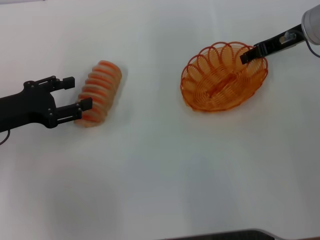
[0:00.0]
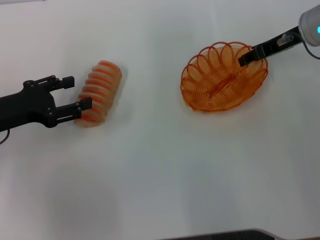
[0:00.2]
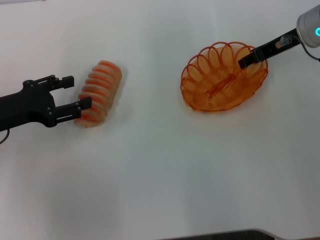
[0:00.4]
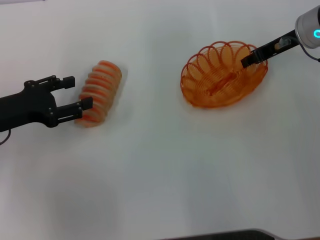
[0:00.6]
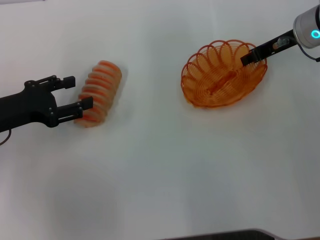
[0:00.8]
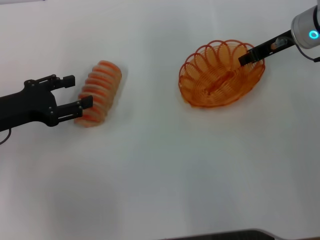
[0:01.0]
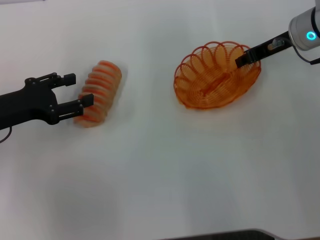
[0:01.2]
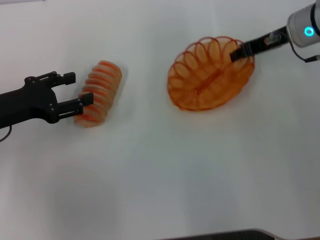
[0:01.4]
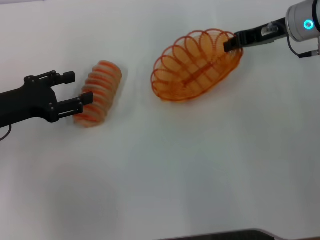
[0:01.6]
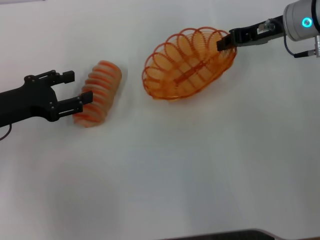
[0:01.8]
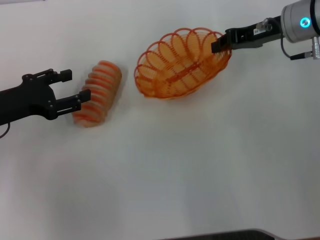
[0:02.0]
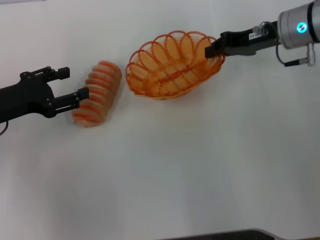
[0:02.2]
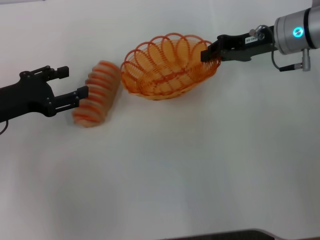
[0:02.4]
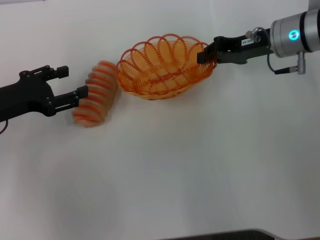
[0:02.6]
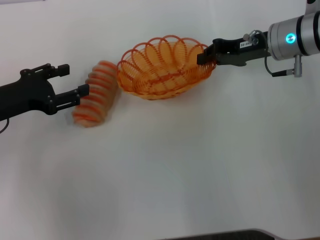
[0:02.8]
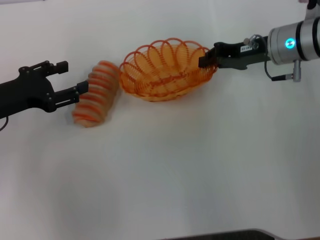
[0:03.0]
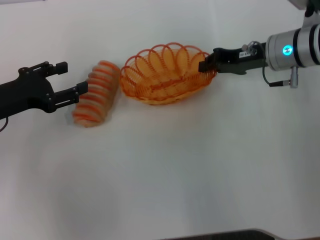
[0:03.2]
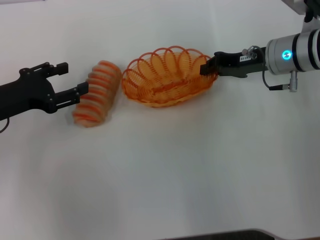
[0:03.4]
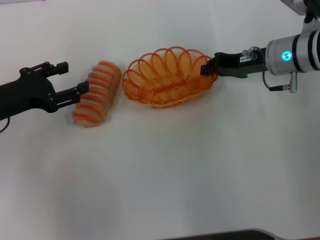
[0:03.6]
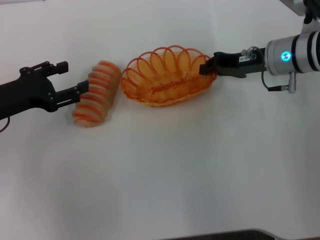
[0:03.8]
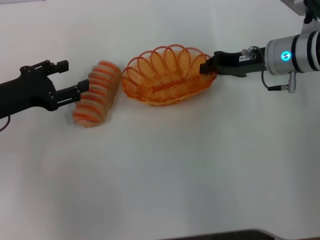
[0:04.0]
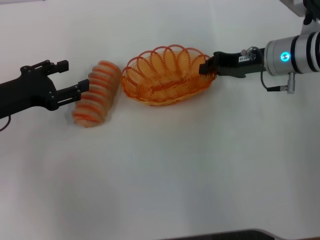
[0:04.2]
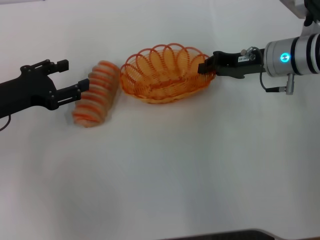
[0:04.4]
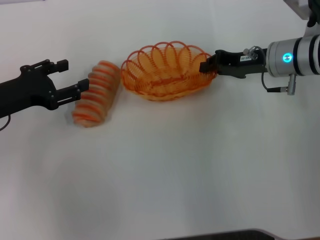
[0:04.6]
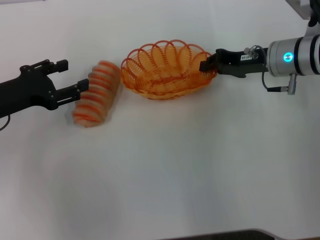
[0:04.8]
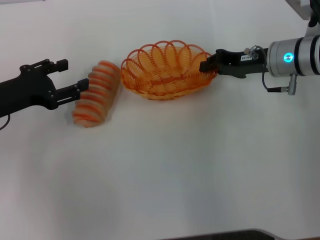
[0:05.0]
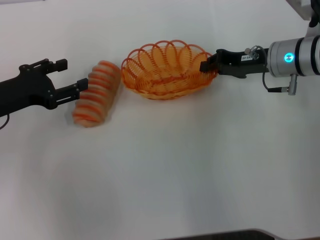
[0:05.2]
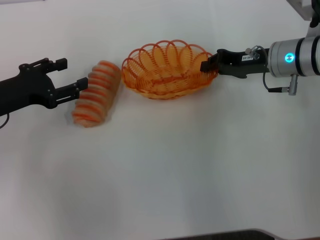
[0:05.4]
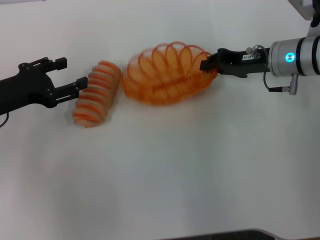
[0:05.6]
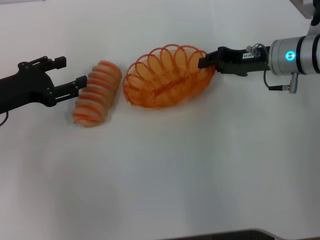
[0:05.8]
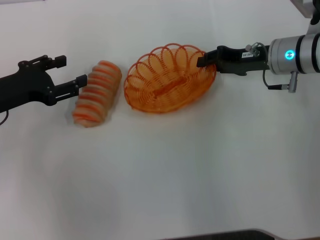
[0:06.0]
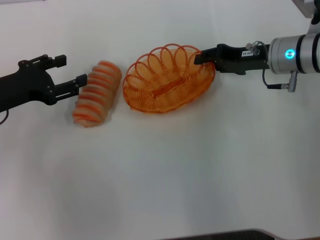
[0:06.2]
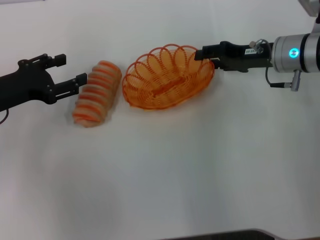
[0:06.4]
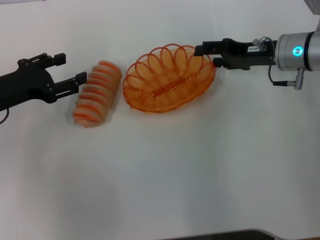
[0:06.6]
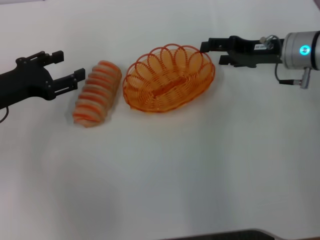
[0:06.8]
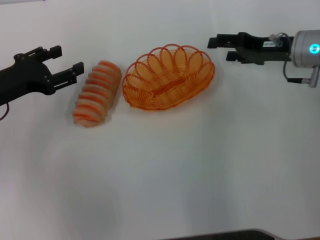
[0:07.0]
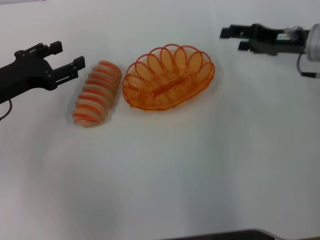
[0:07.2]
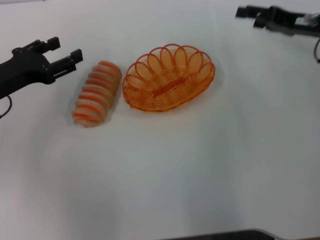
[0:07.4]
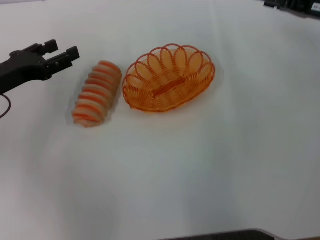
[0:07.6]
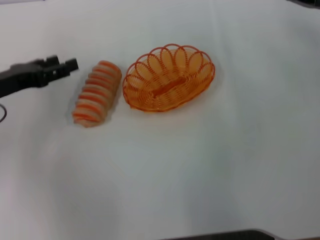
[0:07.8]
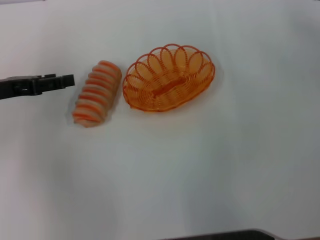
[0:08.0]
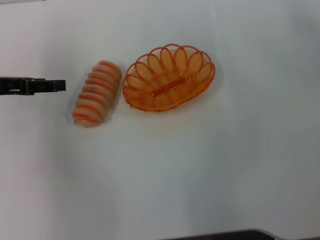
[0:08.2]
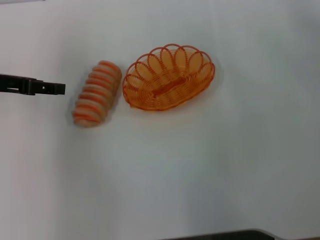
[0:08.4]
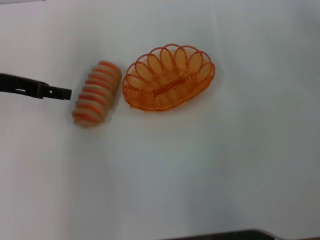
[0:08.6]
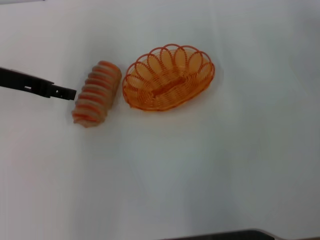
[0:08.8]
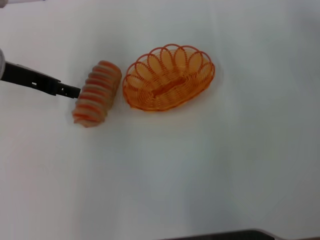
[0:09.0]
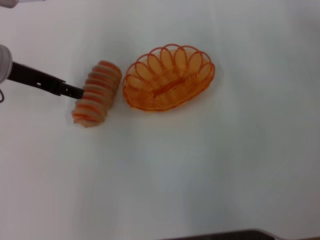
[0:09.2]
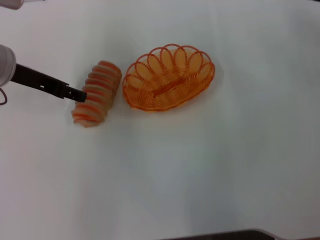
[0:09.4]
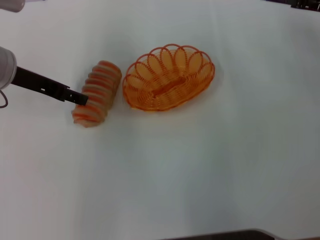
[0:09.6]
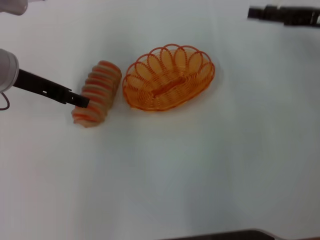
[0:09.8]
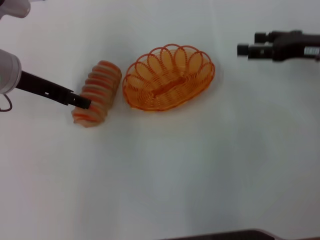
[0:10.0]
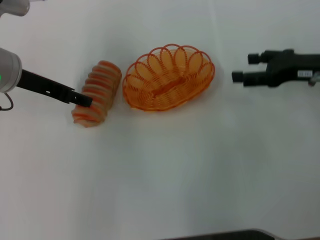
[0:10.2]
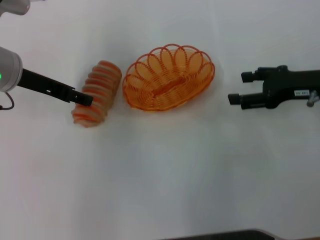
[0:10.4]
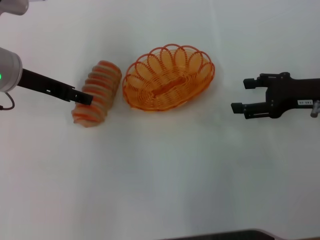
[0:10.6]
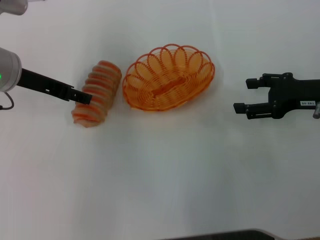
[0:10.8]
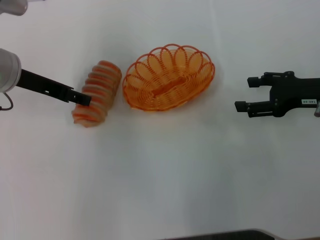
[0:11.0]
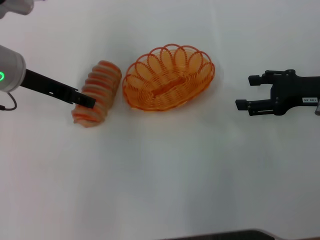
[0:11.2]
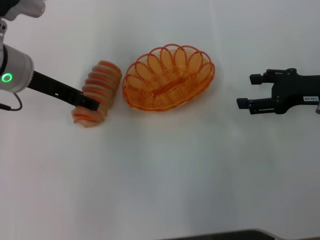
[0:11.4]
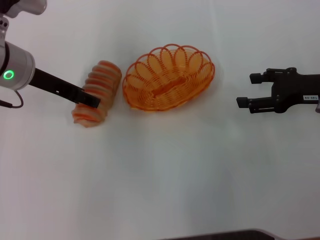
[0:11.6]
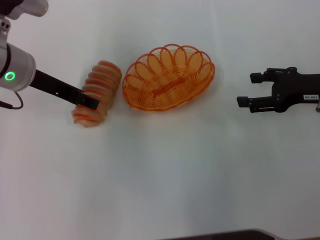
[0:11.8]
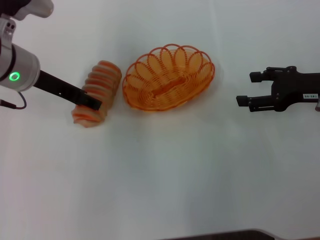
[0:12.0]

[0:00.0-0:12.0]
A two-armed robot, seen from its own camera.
Step, 0:01.8 to 0:06.6: Place the basket in the center of view with the right gripper.
0:00.0 to 0:01.6: The grippers make only small movements.
0:03.0 to 0:04.4: There are only small adjustments of the grippers.
0:04.4 to 0:06.0: The two grippers keep their place.
0:06.0 to 0:07.6: The right gripper goes approximately 10 cm to the right and upward, and opens.
0:07.6 to 0:09.0: The left gripper travels upward by roughly 5 cm.
0:09.0 to 0:10.4: The right gripper travels downward and backward by roughly 10 cm.
0:10.4 to 0:12.0: The grippers move only a little.

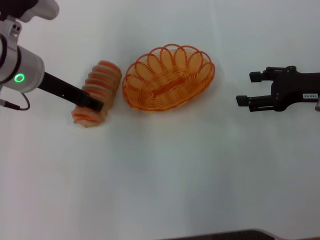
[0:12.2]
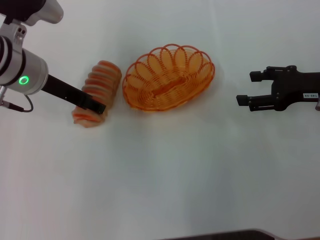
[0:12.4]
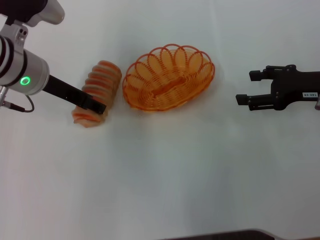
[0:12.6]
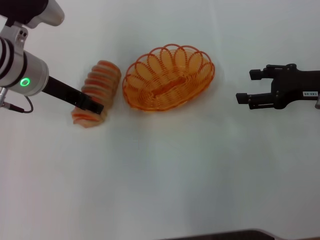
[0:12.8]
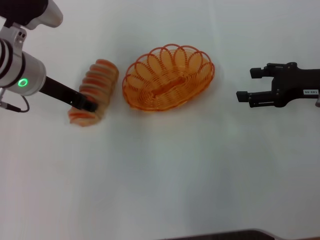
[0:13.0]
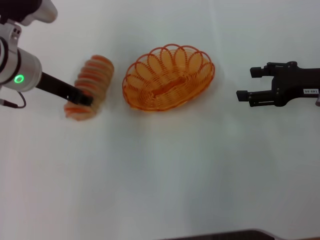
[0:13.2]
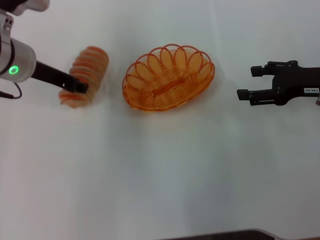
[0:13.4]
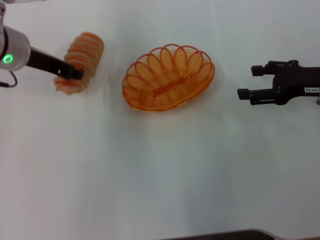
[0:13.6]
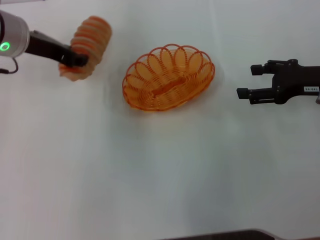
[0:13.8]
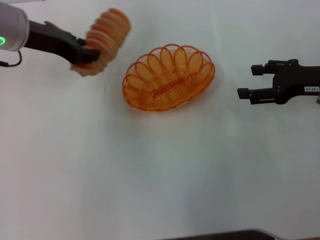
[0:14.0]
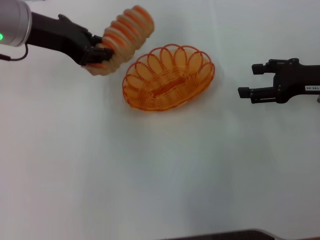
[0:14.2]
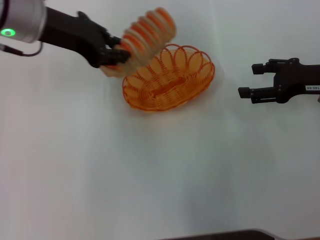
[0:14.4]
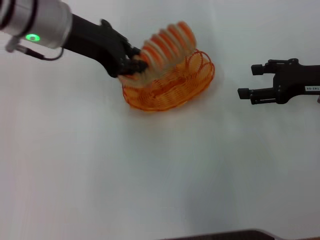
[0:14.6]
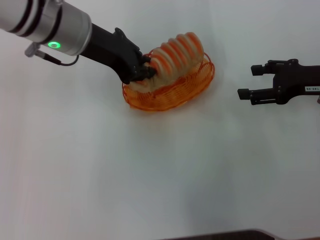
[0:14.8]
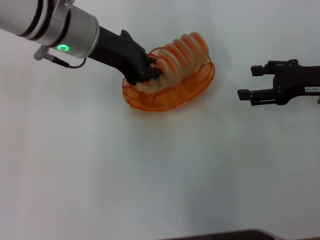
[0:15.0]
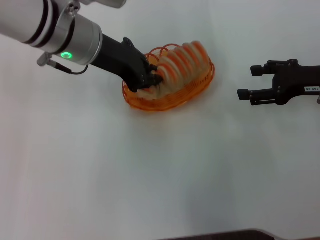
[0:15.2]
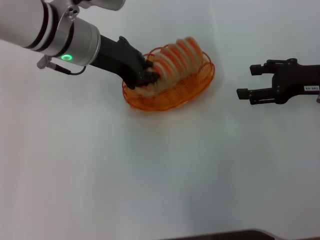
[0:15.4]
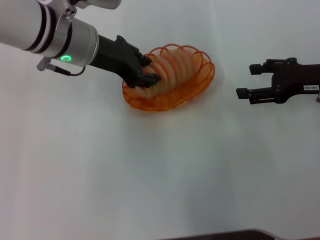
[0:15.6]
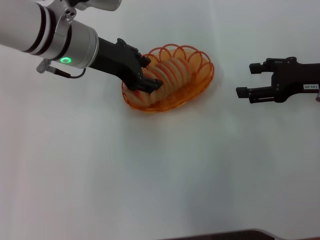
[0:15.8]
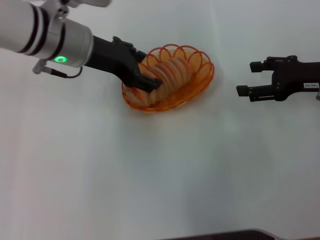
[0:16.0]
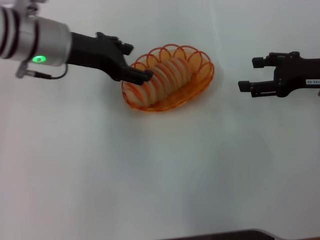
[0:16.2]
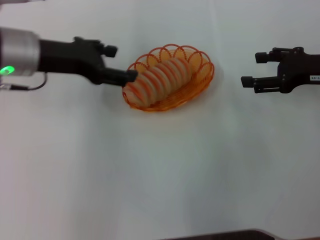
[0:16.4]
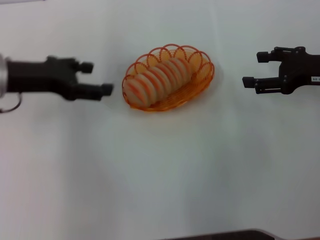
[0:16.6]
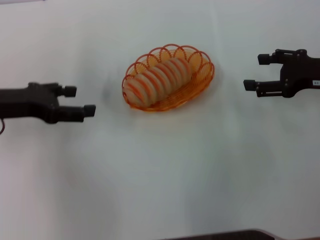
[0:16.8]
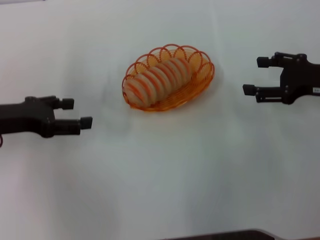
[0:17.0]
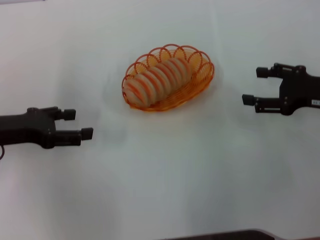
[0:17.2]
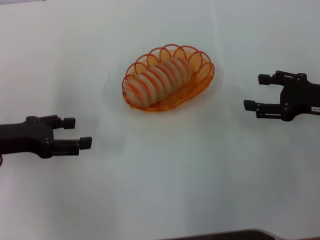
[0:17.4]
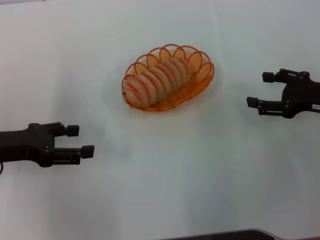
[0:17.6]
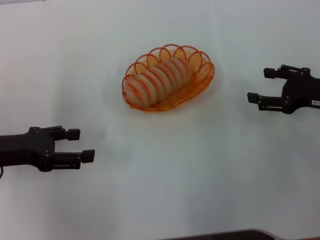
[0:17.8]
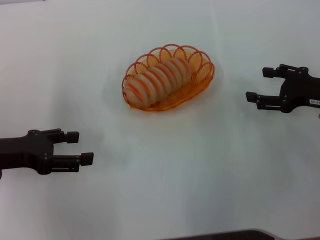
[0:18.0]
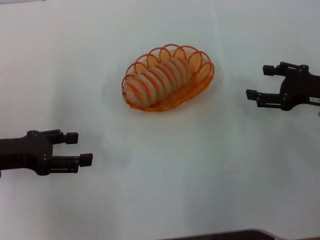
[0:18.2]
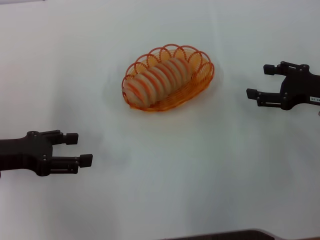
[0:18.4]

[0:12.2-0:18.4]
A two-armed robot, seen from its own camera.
Step, 0:13.6 to 0:16.0: Place the long bread into the basket with the left gripper.
0:12.2 to 0:13.8: The left gripper closes its fingers.
0:13.8 to 0:15.4: The left gripper moves to the right, some 10 cm.
0:15.4 to 0:16.8: The left gripper heads to the left and backward, covering some 15 cm, and opens up.
0:16.8 to 0:18.4: The left gripper goes roughly 5 cm backward.
